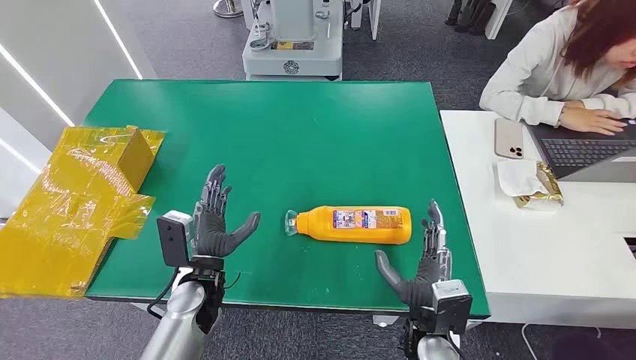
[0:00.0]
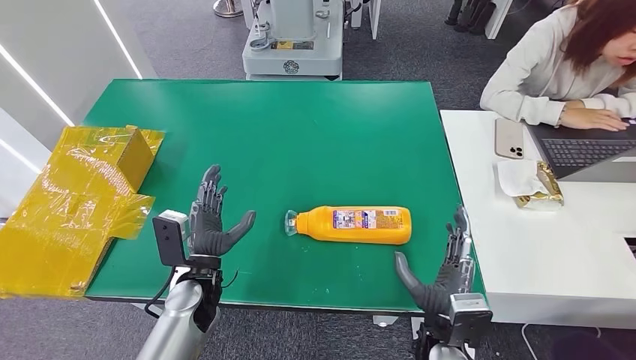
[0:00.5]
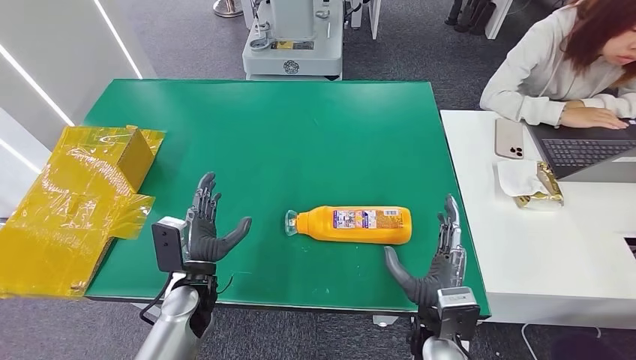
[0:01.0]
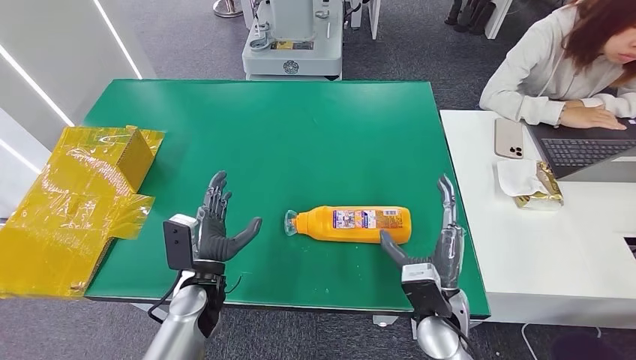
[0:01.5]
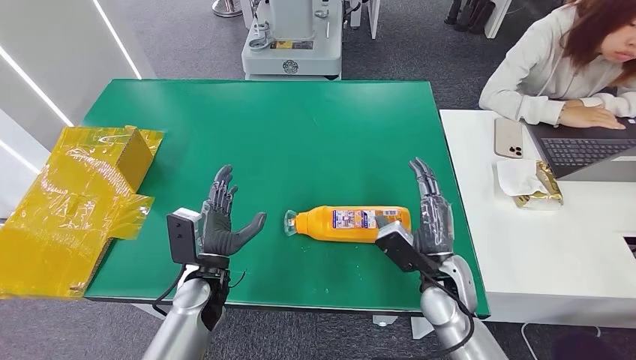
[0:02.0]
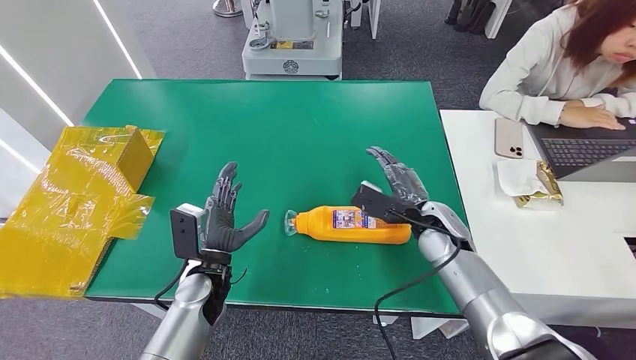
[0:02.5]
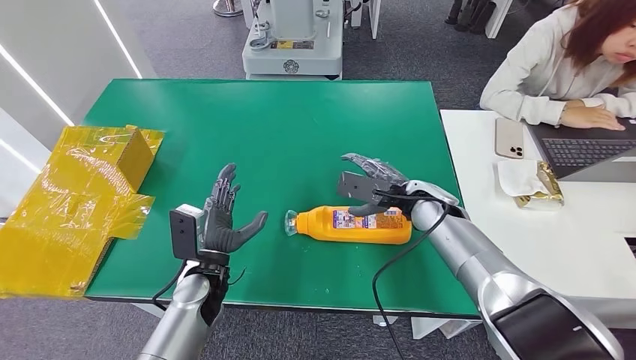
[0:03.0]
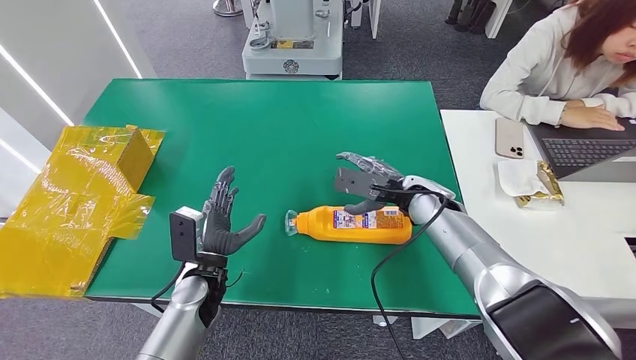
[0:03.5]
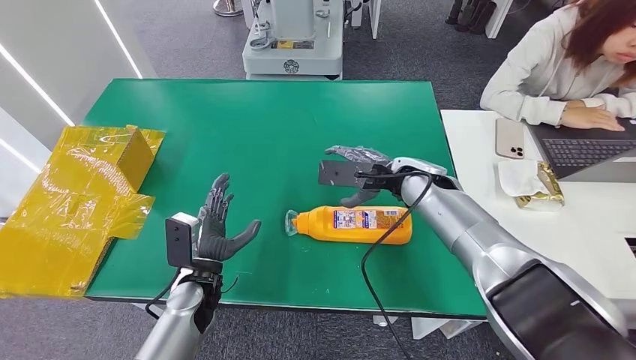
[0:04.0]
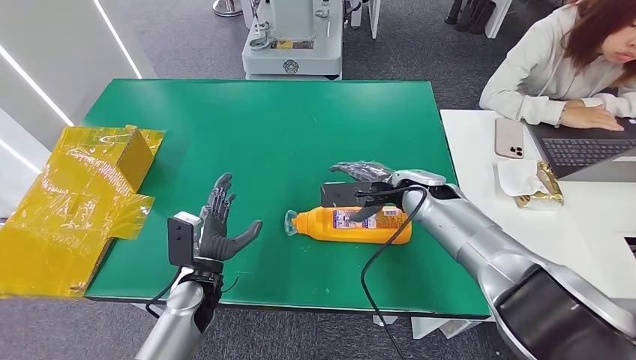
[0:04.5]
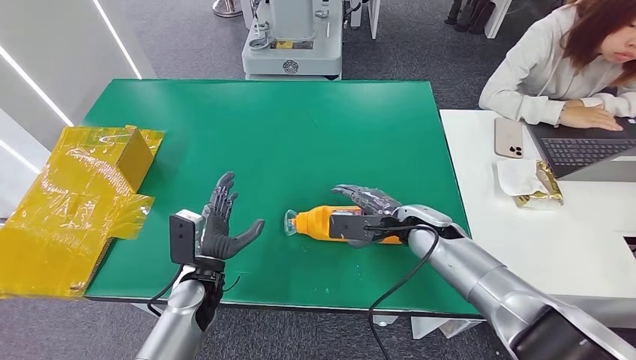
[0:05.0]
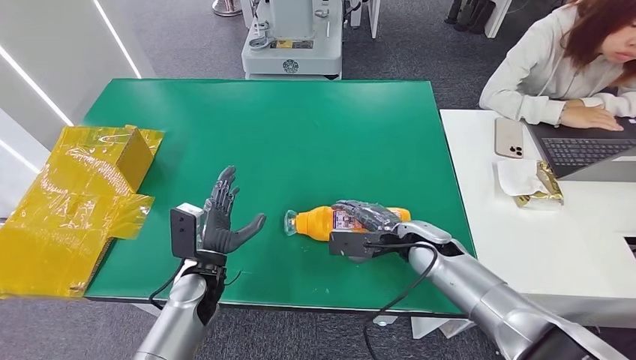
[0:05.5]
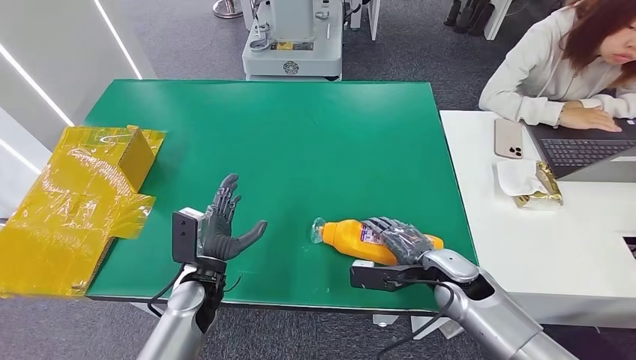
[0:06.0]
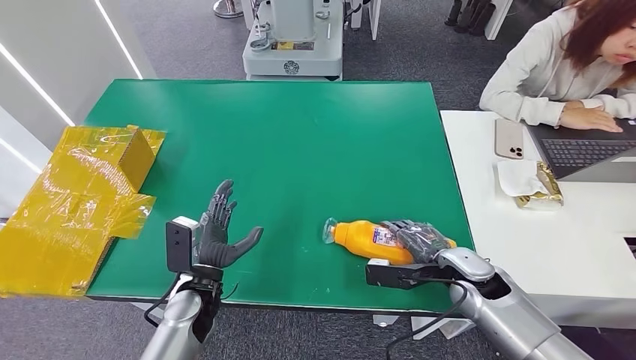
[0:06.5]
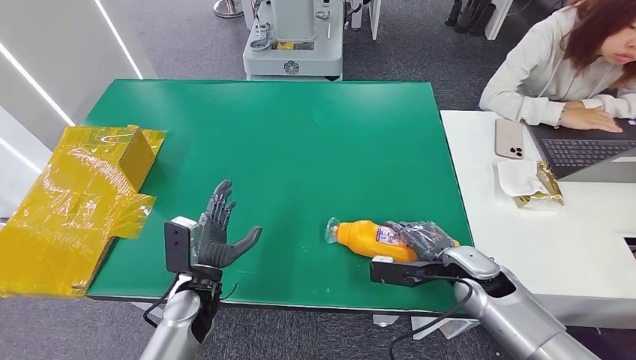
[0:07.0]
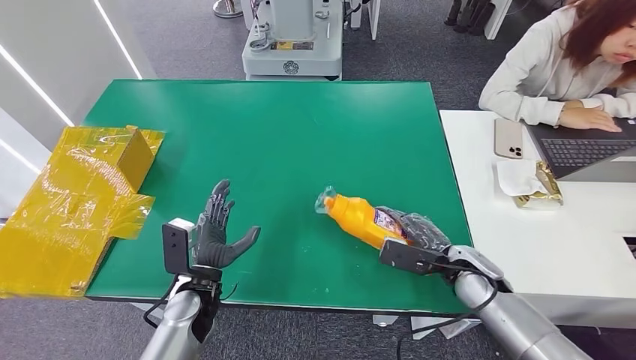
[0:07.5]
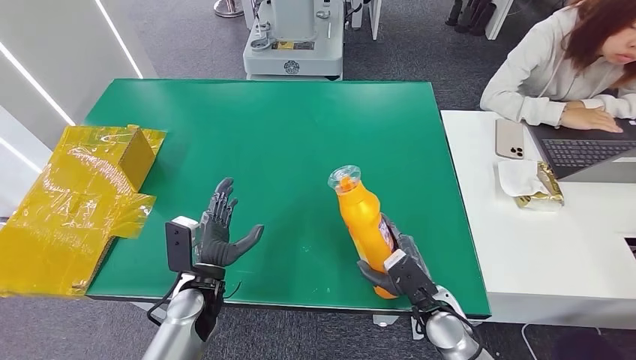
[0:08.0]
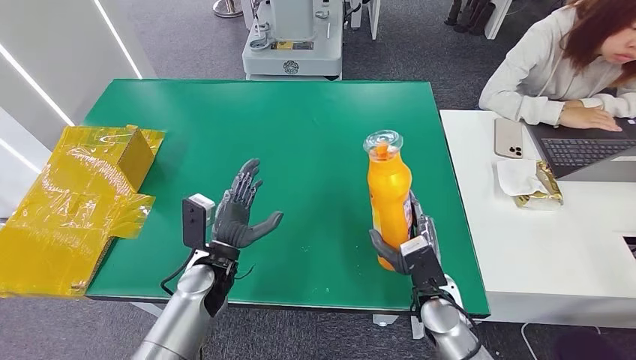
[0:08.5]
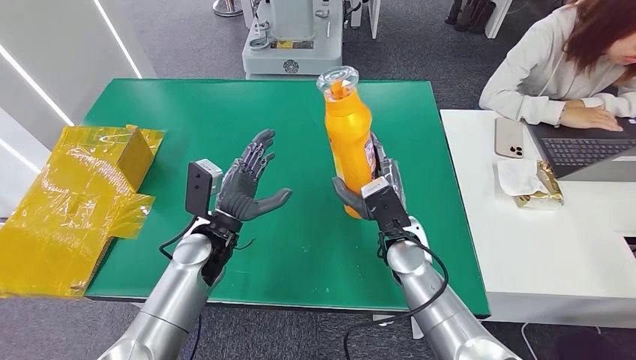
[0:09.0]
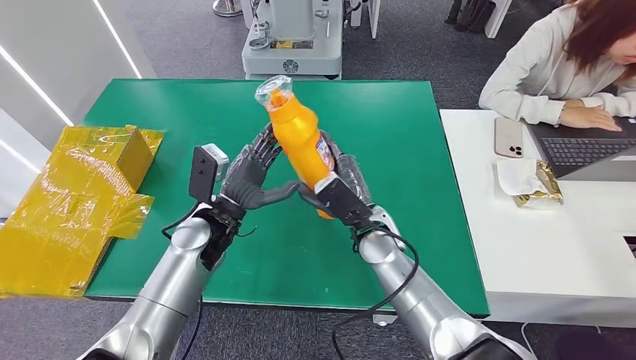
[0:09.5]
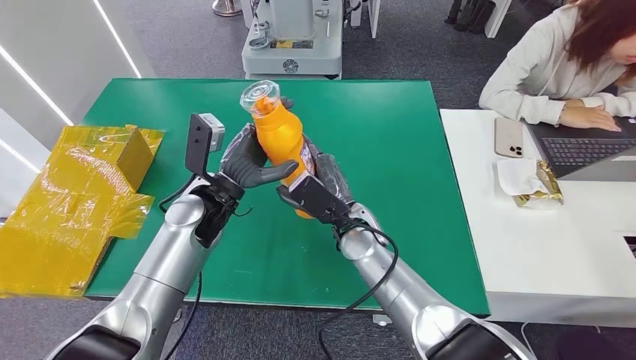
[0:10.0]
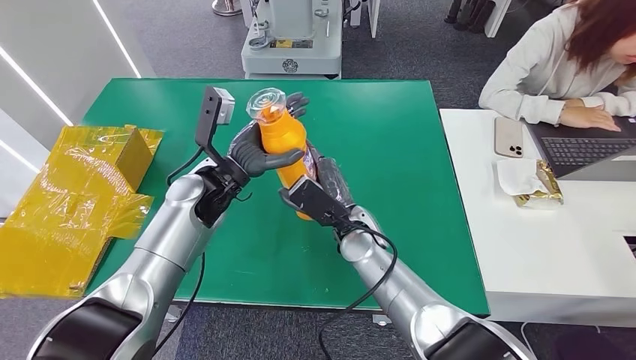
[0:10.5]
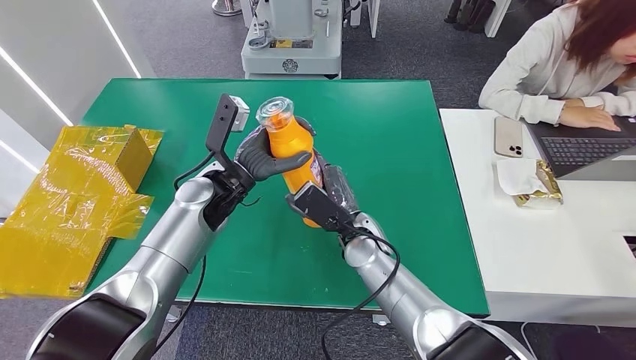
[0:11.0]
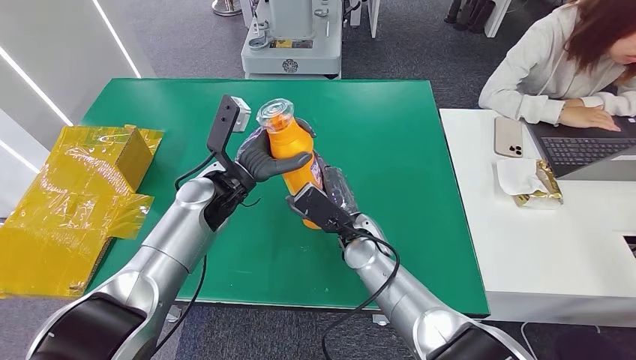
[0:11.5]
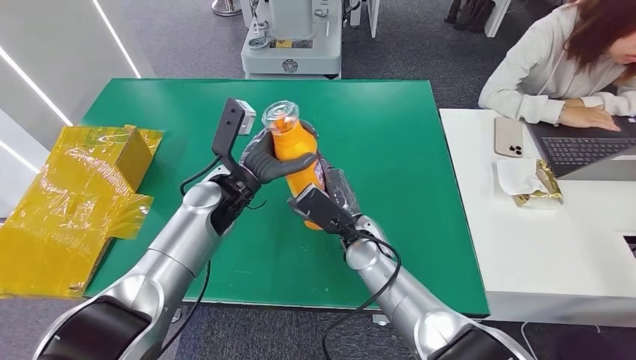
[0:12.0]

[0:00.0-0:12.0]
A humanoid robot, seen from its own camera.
Step, 0:00.0 to 0:08.5: Pick up the bottle from the table.
0:02.0 to 0:04.0: The right hand moves forward and upward, approximately 20 cm.
0:04.0 to 0:06.0: The right hand shifts about 20 cm backward, downward and to the right.
0:06.0 to 0:08.0: The right hand heads backward, covering some 5 cm.
0:10.0 to 0:12.0: There are only small adjustments of the hands.

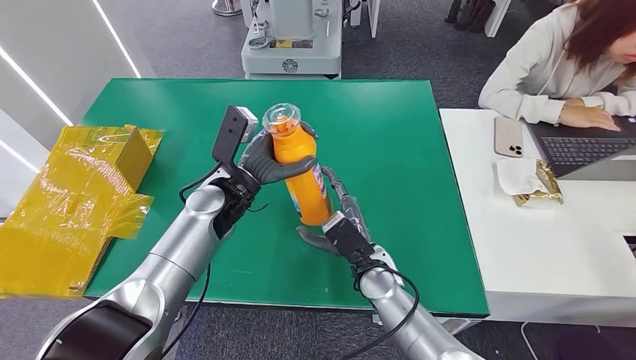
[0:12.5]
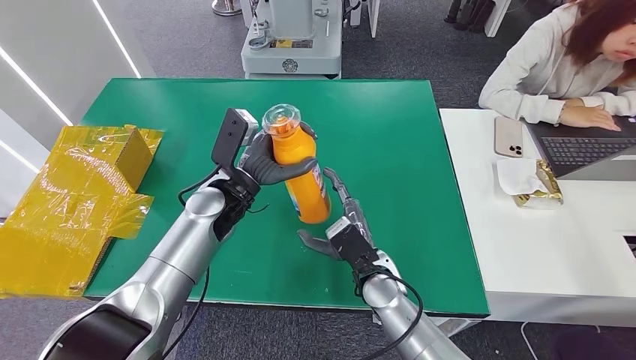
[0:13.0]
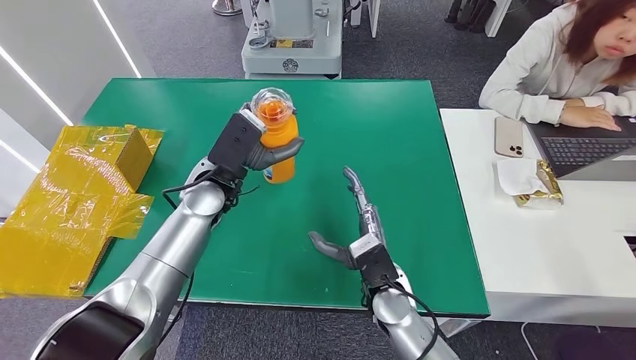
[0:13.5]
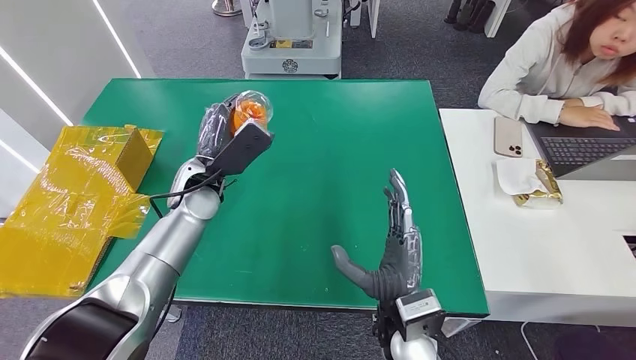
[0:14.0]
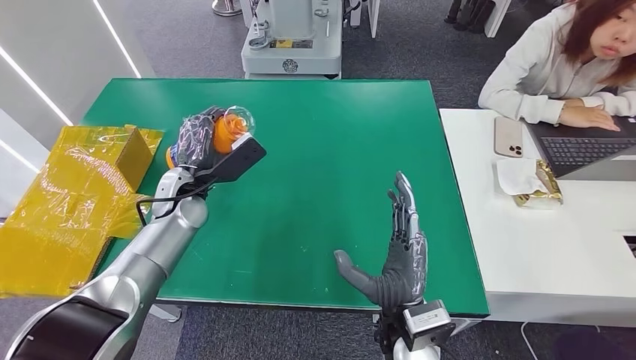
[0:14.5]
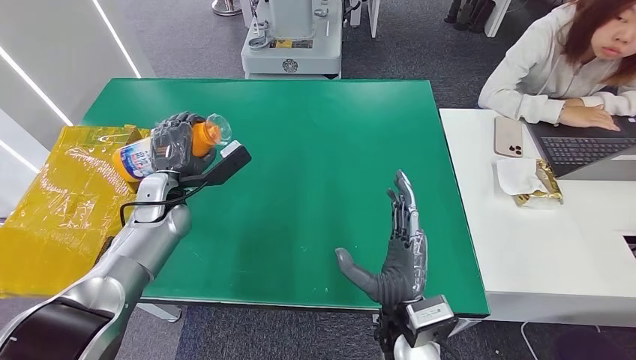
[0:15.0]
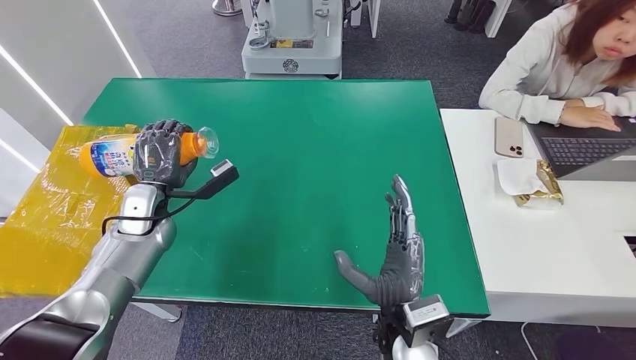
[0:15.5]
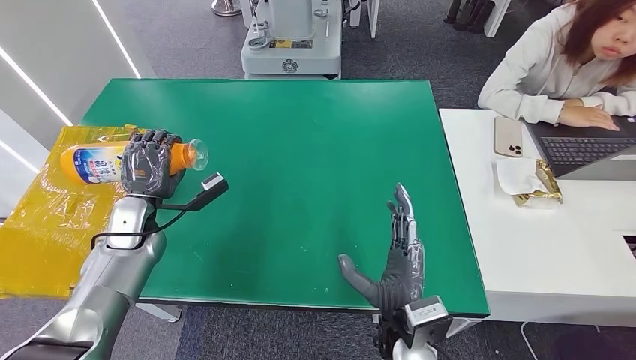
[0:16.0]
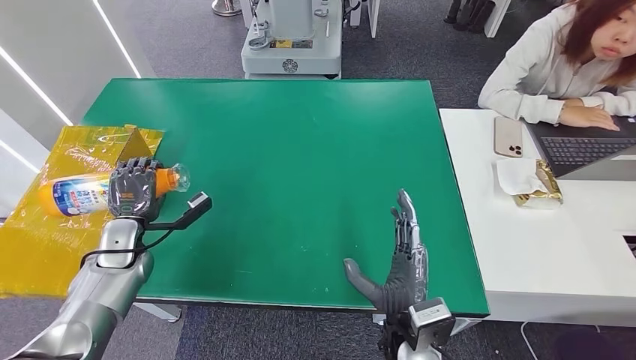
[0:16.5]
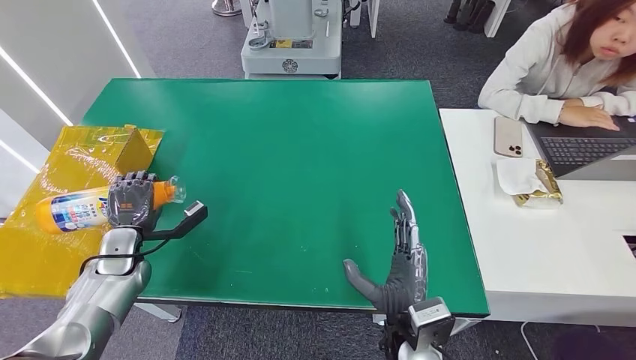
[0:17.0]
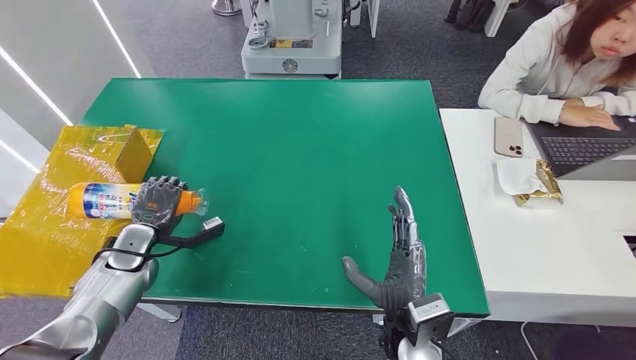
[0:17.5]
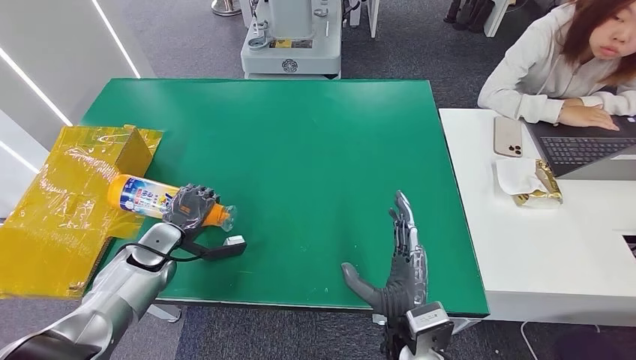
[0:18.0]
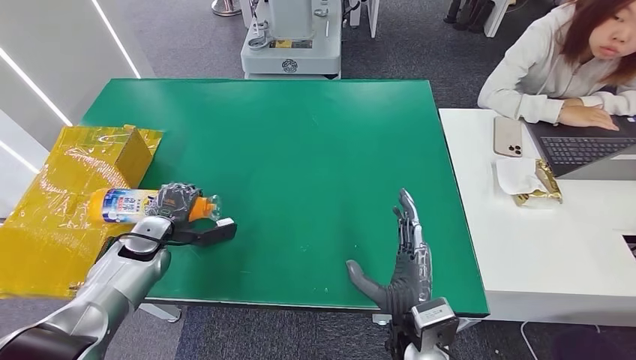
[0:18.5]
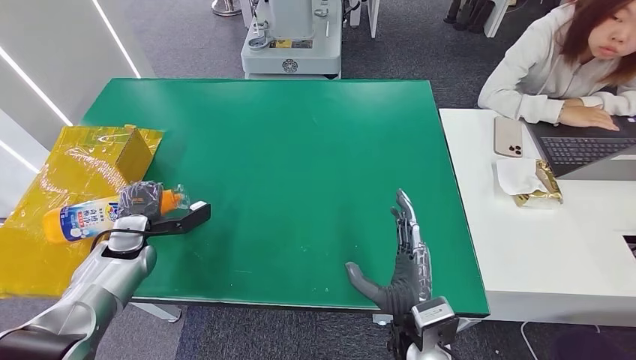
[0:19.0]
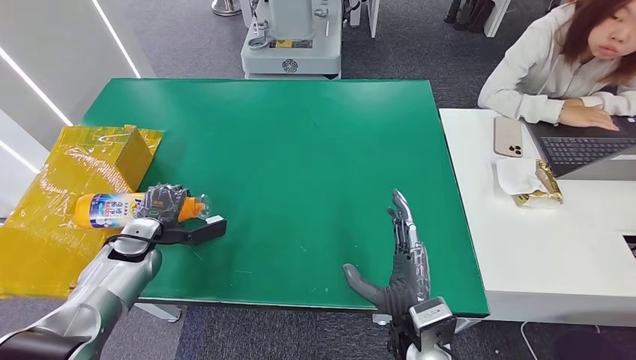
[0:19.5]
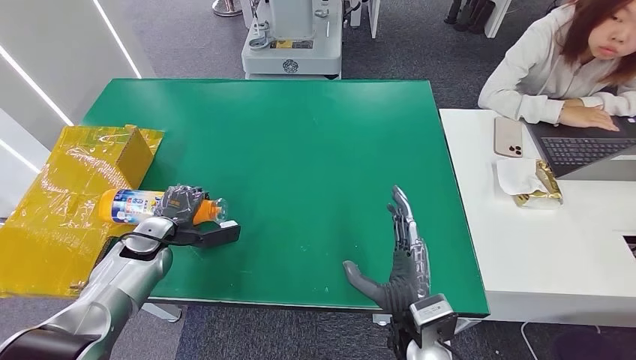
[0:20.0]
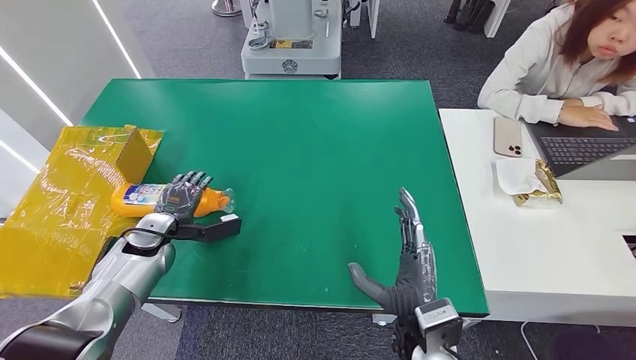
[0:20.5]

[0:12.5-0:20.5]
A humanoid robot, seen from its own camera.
0:12.5 to 0:14.5: The left hand is displaced to the left by some 10 cm, while the right hand travels backward and upward by roughly 10 cm.
0:14.5 to 0:16.5: The left hand travels to the left, downward and backward by roughly 15 cm.
0:18.5 to 0:20.5: The hands move only a little.
